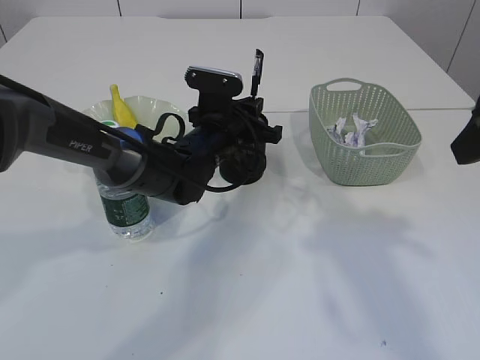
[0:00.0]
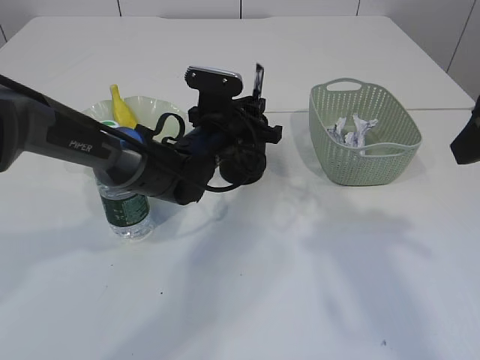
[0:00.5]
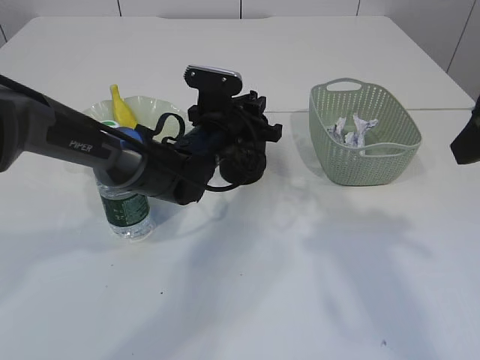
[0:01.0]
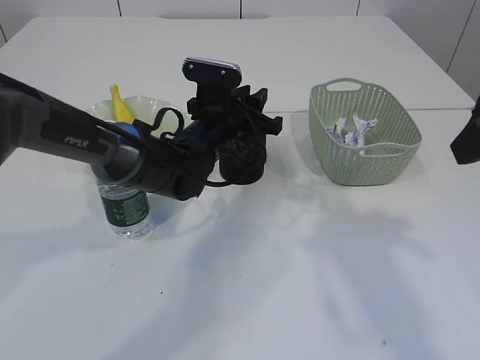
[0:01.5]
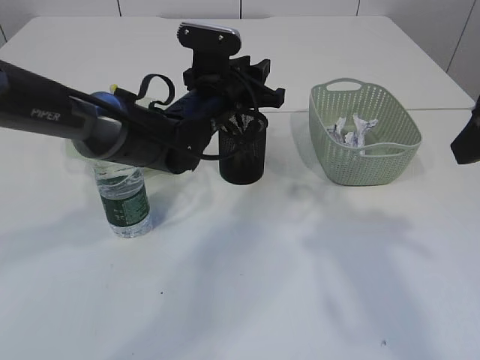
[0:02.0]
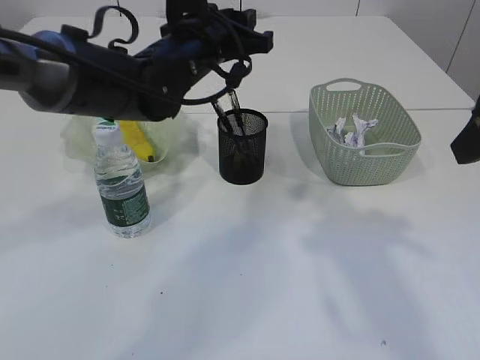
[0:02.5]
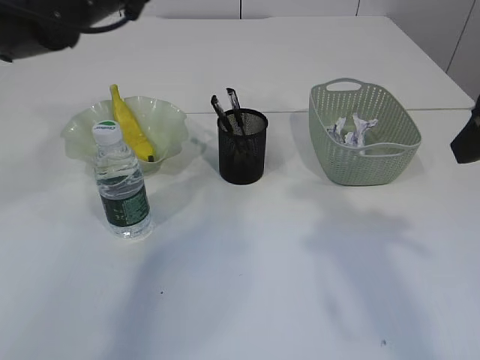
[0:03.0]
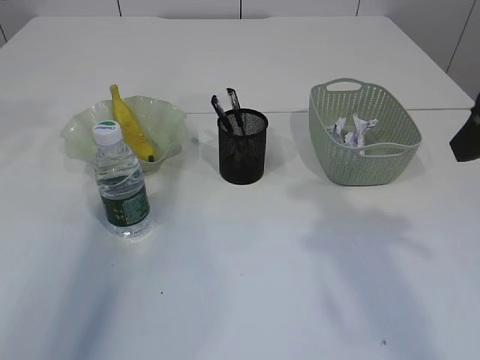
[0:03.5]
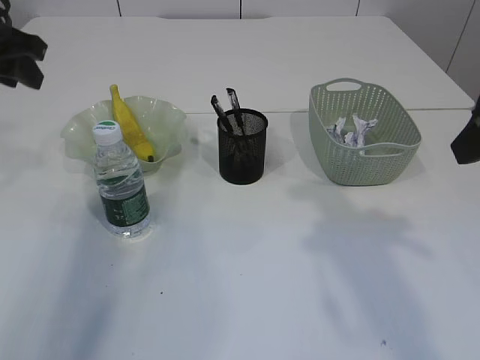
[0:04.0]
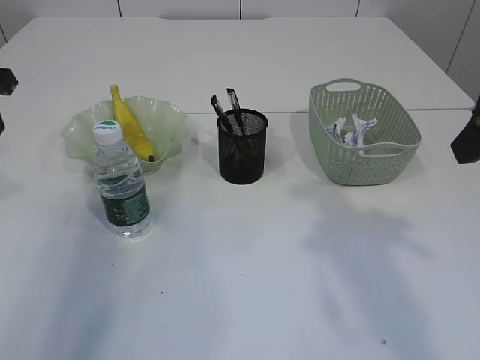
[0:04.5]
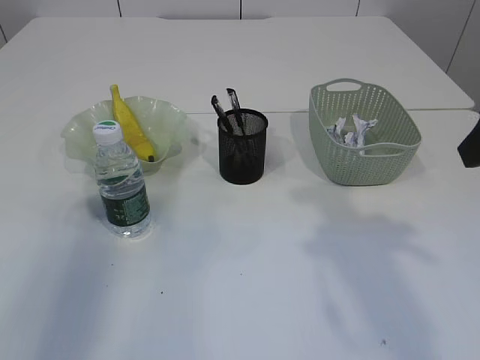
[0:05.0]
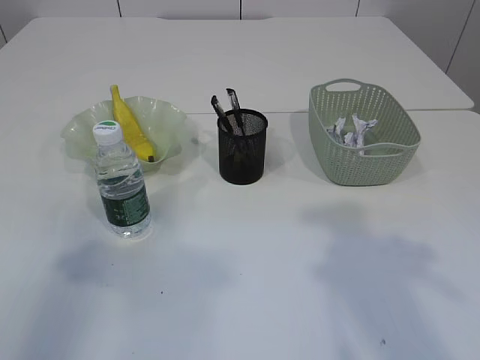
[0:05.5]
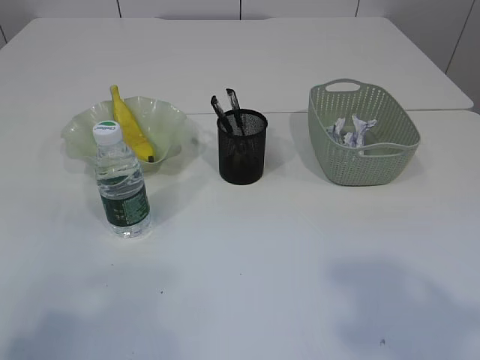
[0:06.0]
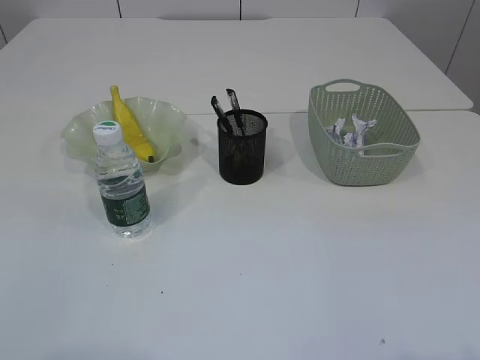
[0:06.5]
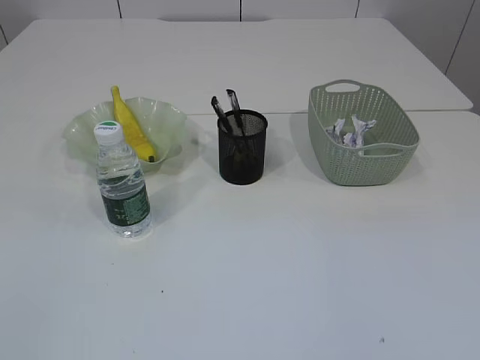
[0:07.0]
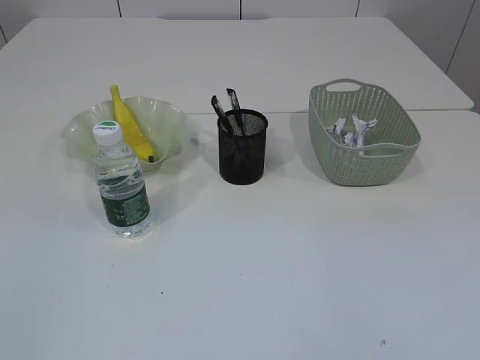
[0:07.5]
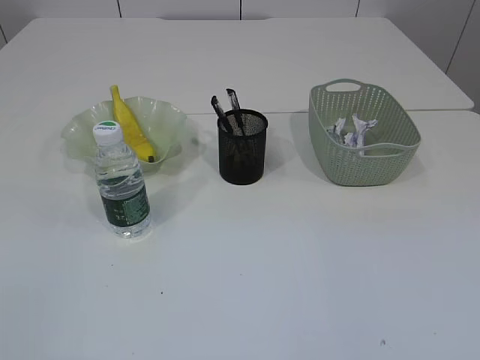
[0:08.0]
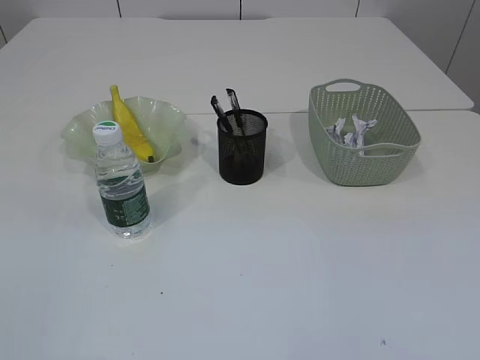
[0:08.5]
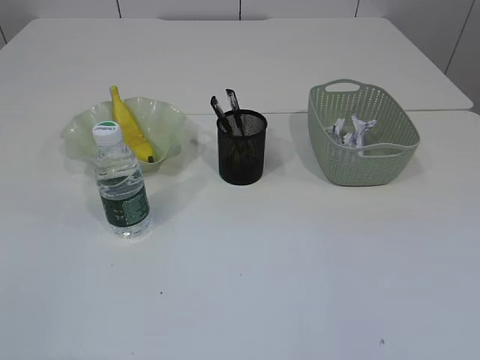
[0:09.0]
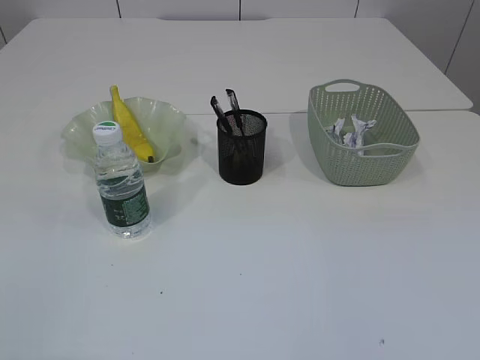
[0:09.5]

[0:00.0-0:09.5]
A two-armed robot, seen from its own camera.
Step, 0:00.0 to 0:02.0: Place the pen into the pen holder.
0:00.0 to 0:02.0: The left gripper is displaced upward by about 5 cm.
0:02.0 to 0:04.0: The left gripper is displaced to the left and upward by about 30 cm.
0:04.0 to 0:05.5: The right gripper goes roughly 5 cm backward; the left gripper heads backward, covering about 20 cm.
0:05.5 to 0:07.5: The left gripper travels backward and downward by some 20 cm.
